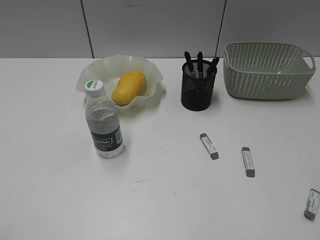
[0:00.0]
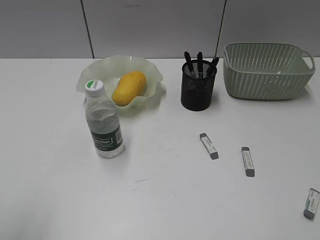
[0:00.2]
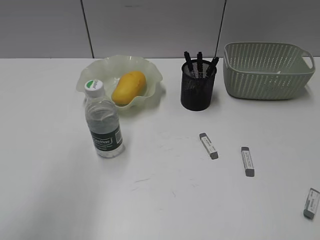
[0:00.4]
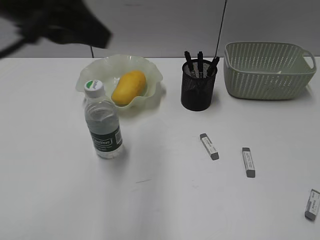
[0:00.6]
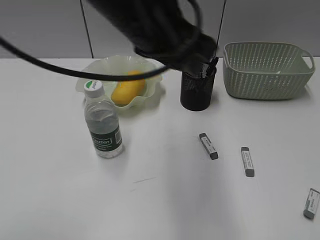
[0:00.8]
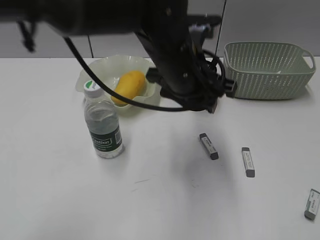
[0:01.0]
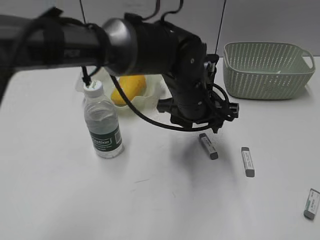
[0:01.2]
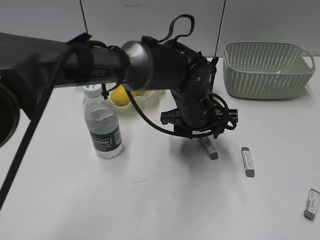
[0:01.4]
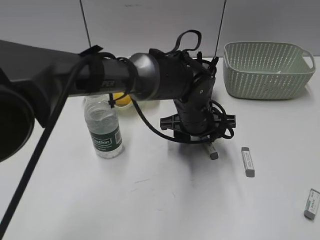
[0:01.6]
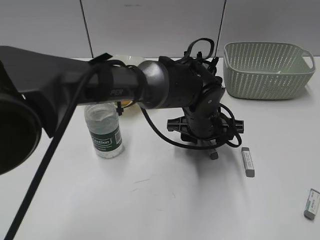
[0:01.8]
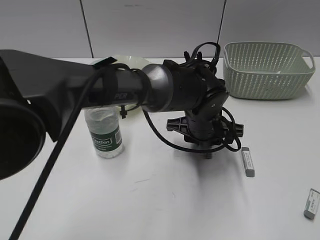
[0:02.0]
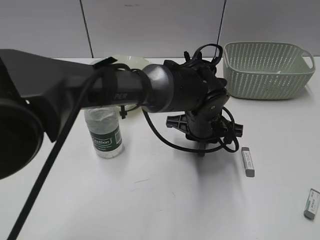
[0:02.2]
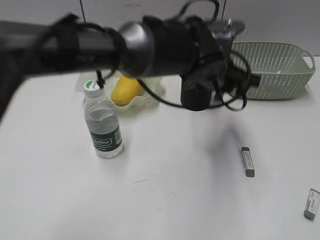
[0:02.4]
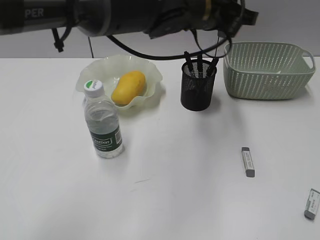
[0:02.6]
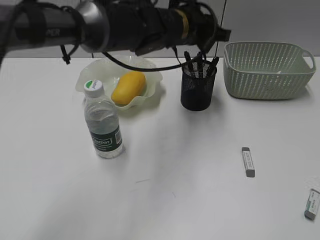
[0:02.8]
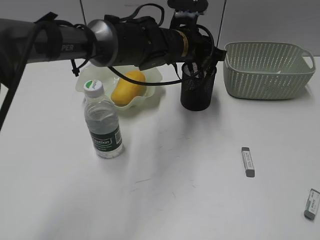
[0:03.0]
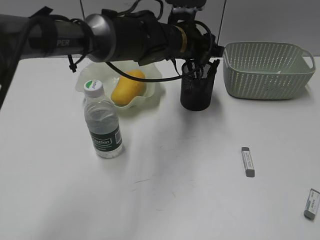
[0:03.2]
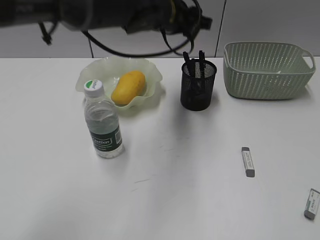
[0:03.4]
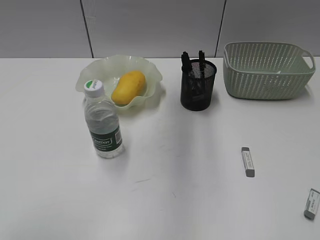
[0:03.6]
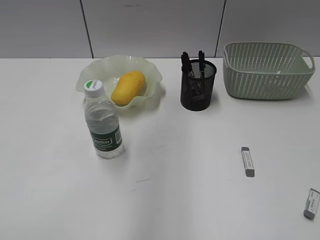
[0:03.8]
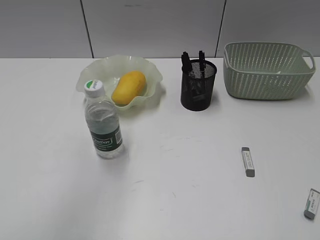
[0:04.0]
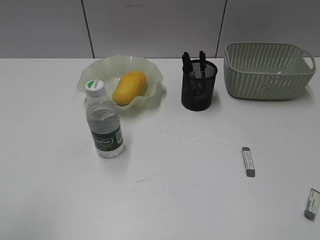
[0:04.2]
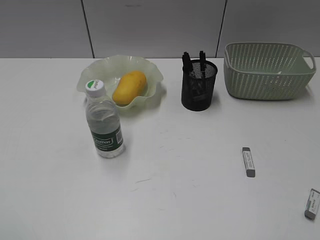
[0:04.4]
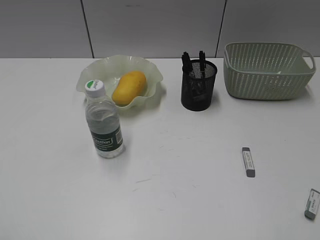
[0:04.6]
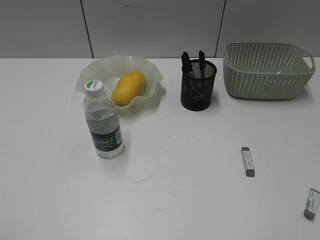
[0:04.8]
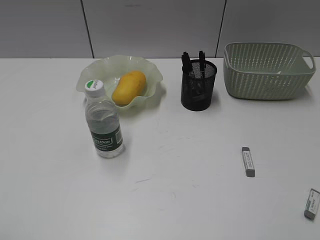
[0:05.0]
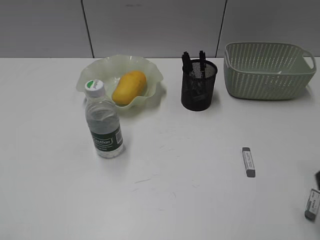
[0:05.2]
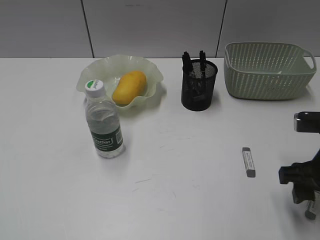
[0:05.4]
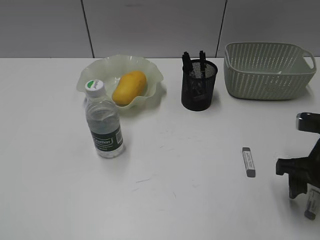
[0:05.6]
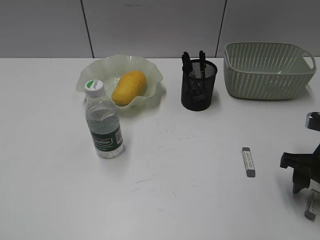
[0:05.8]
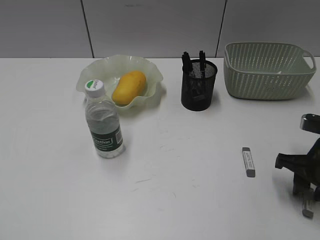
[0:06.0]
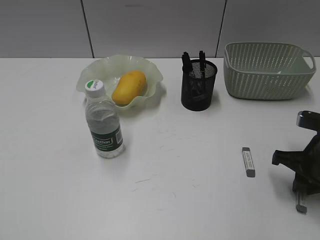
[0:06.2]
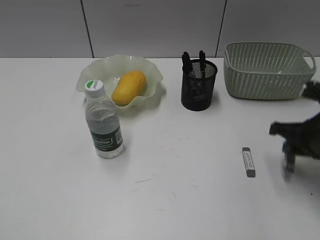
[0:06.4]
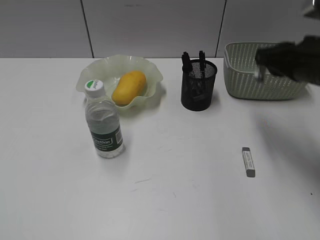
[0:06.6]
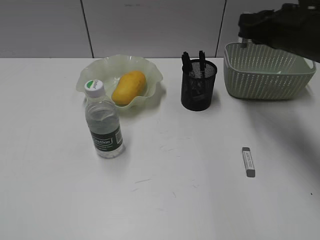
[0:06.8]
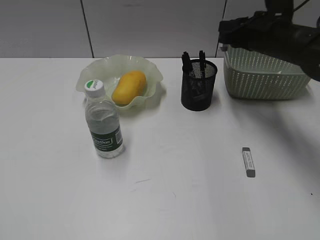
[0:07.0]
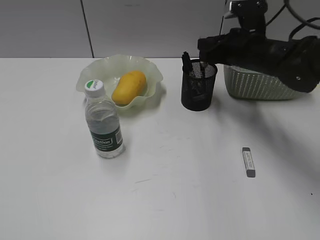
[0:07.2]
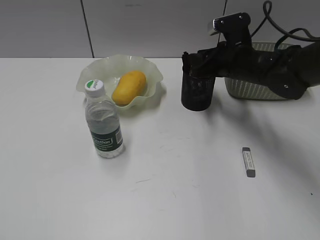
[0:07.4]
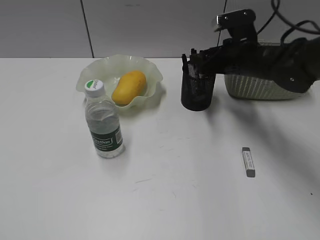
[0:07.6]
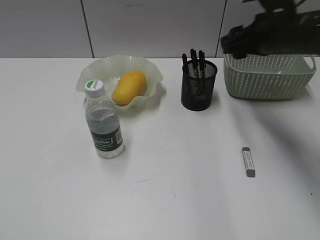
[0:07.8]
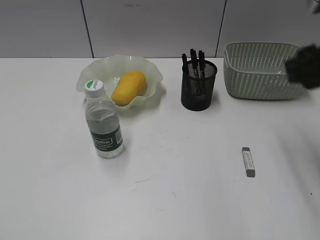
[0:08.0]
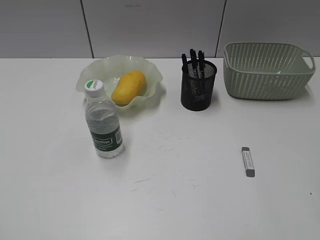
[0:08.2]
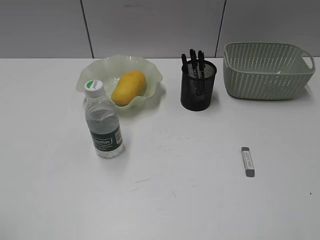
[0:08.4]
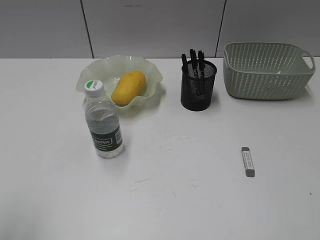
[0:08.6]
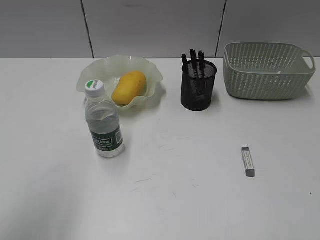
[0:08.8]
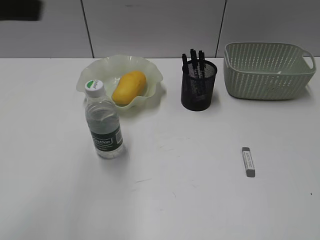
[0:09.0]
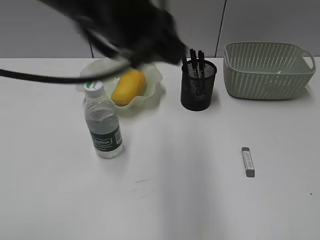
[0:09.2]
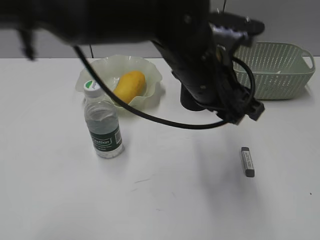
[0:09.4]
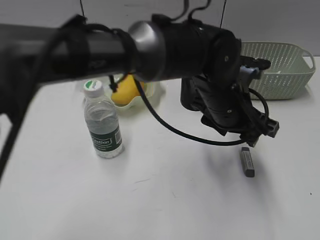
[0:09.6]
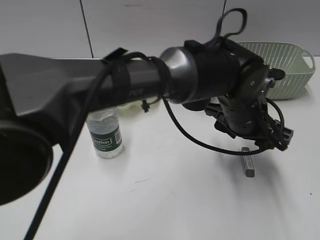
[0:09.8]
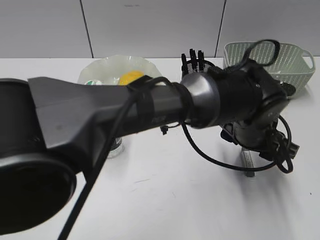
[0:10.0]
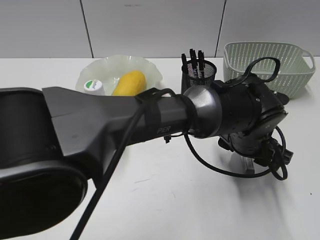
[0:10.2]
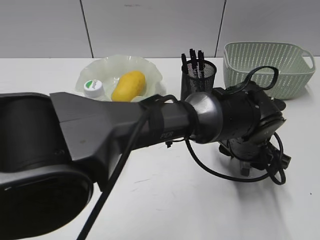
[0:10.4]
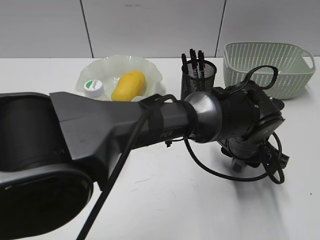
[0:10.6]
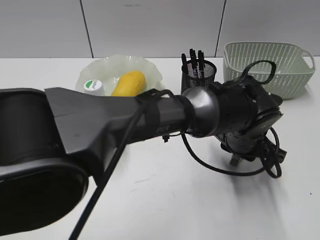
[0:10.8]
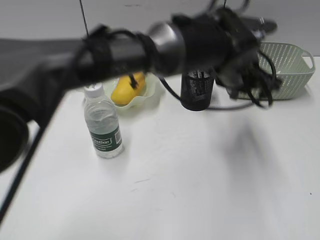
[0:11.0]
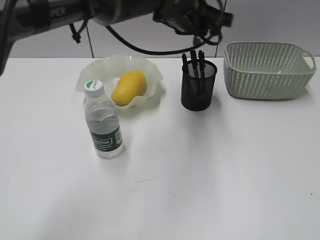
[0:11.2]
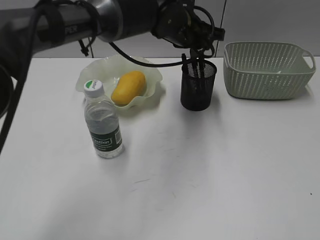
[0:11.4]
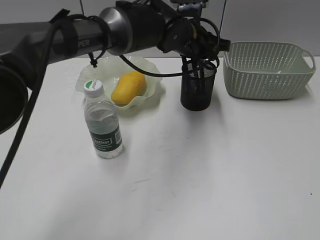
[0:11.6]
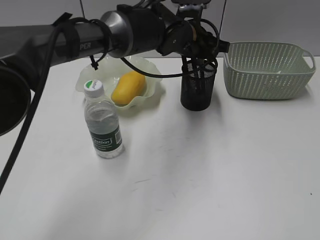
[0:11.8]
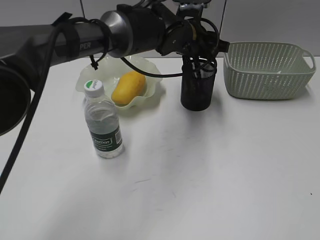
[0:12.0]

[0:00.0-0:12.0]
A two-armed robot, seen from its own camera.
Step, 0:00.0 to 0:02.0: Grasp the eraser with left gripper.
Step, 0:02.2 to 0:03.2: Place the eraser in pen holder with left gripper.
Step, 0:03.4 to 0:06.2: Grasp the eraser with right gripper.
Step, 0:06.4 to 0:07.6: Place the eraser in pen holder with right gripper.
Step, 0:07.8 to 0:10.6: Grasp the eraser with left gripper.
0:00.0 to 0:01.6: The right gripper heads backward and to the right, covering roughly 15 cm; the left gripper travels to the right, forward and downward by approximately 50 cm, and opens its fingers.
0:01.6 to 0:03.0: The left gripper heads forward and upward, covering about 10 cm, and closes.
0:03.0 to 0:04.4: The left gripper goes approximately 50 cm backward and to the left, and opens, then closes again.
0:04.4 to 0:06.0: The right gripper goes about 30 cm forward and downward, and opens, then closes once more.
0:06.0 to 0:07.6: The right gripper goes some 20 cm forward and to the left, and opens.
0:07.6 to 0:09.0: The left gripper is displaced forward, to the right and upward by roughly 25 cm, while the right gripper heads backward, covering approximately 40 cm.
0:09.0 to 0:10.4: The left gripper shifts some 50 cm to the right and downward.
0:10.4 to 0:12.0: The left gripper moves forward, upward and to the left, roughly 20 cm, and closes and opens again.

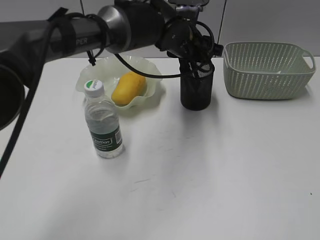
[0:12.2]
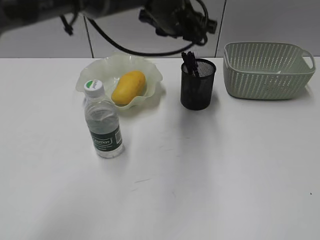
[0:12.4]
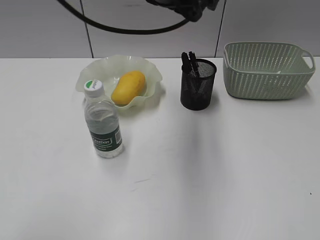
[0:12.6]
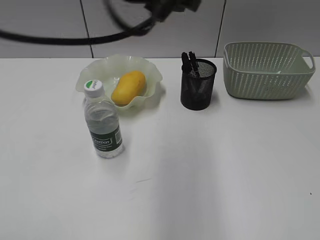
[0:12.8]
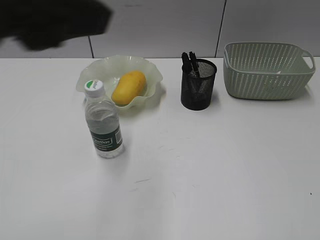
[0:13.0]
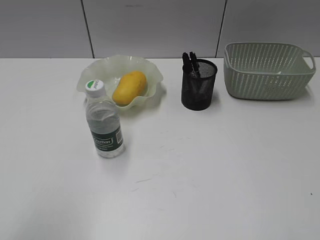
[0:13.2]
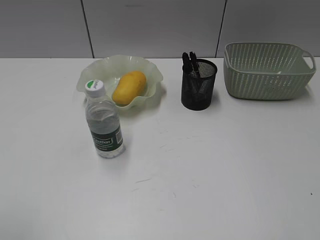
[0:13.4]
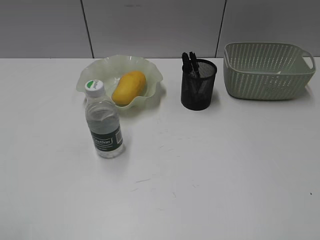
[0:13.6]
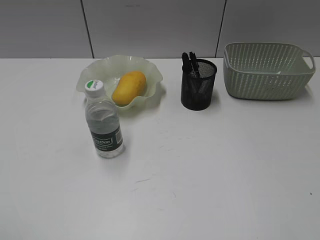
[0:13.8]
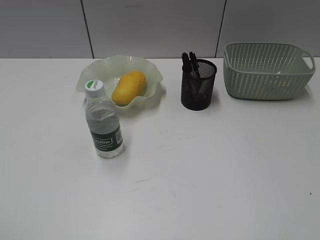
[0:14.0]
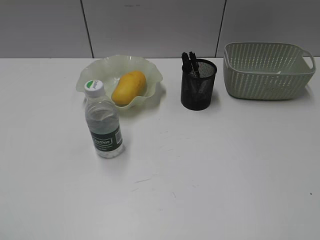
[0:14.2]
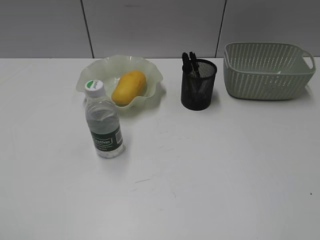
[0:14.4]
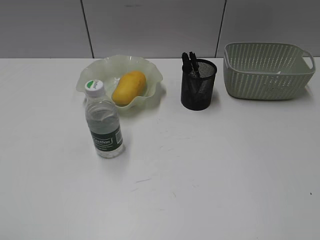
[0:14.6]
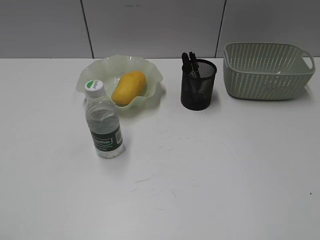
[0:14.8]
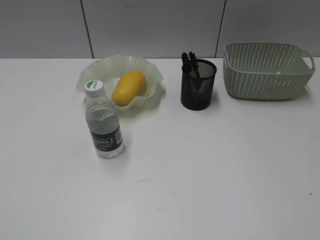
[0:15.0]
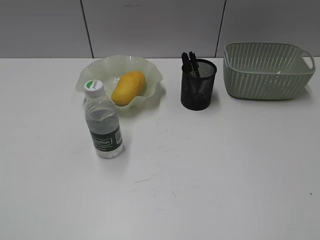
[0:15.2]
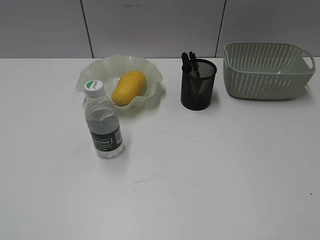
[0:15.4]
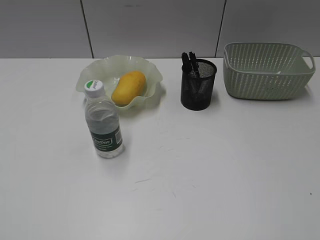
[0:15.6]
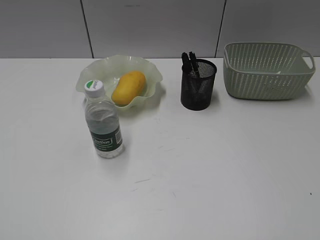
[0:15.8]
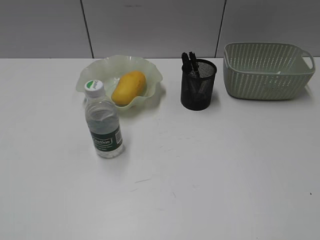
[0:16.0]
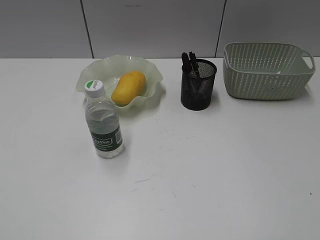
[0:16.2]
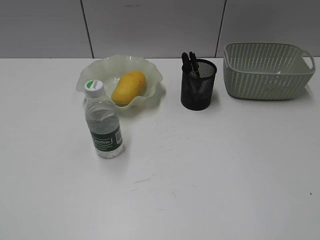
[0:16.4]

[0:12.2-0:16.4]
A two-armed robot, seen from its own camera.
0:12.2 to 0:13.6: The left gripper is displaced backward and to the left by roughly 50 cm.

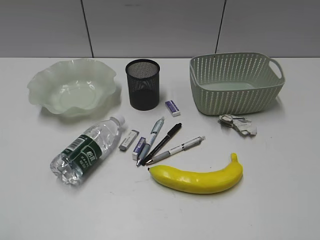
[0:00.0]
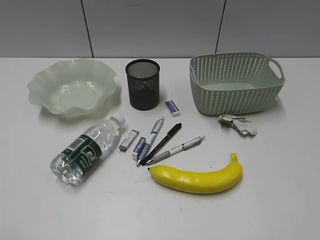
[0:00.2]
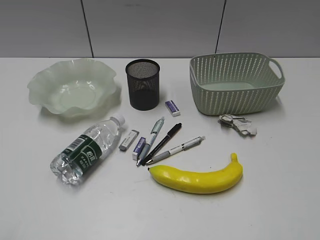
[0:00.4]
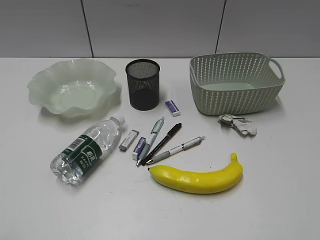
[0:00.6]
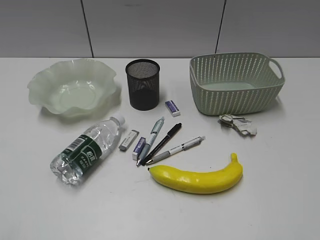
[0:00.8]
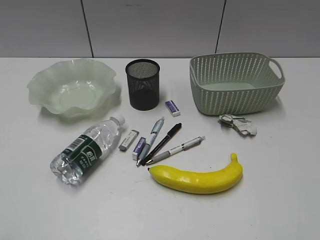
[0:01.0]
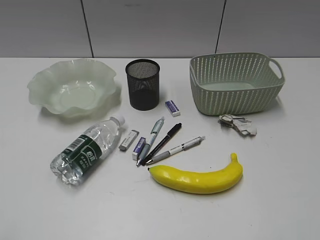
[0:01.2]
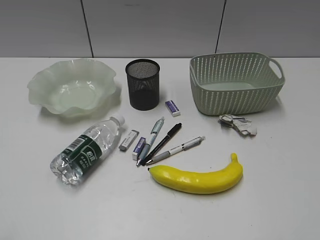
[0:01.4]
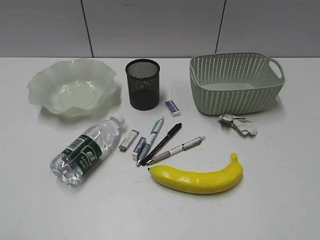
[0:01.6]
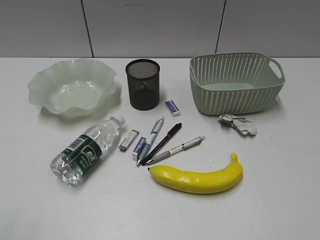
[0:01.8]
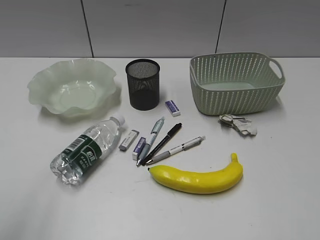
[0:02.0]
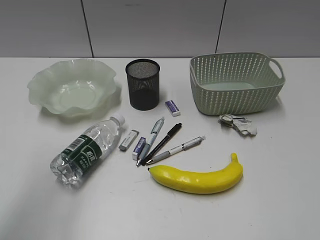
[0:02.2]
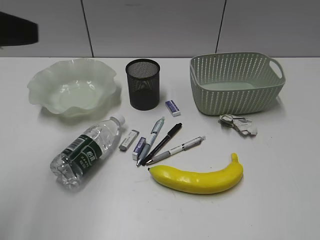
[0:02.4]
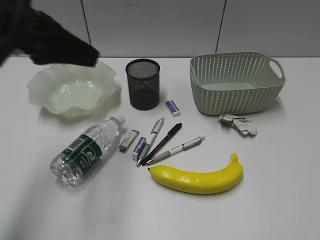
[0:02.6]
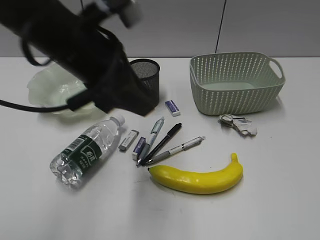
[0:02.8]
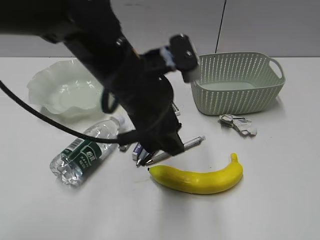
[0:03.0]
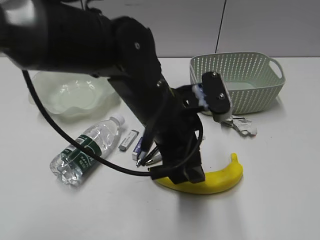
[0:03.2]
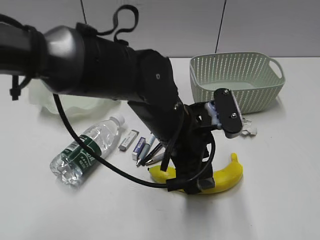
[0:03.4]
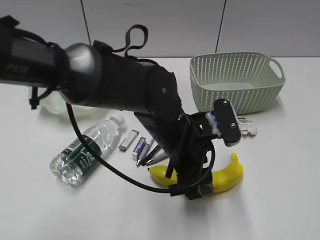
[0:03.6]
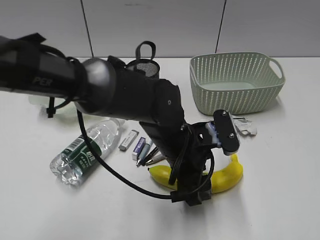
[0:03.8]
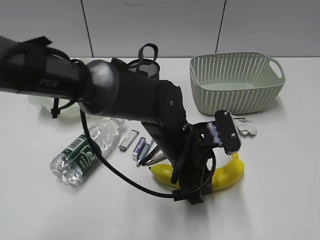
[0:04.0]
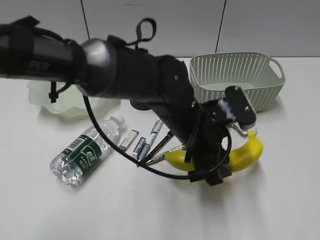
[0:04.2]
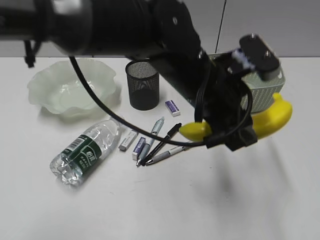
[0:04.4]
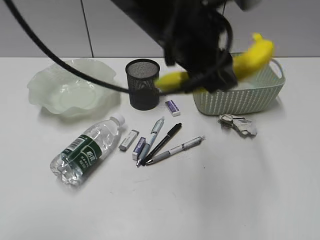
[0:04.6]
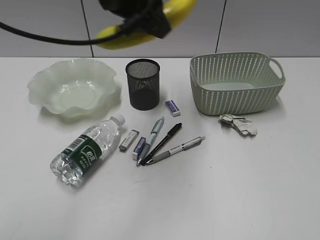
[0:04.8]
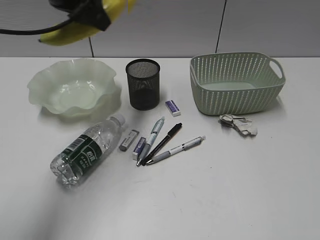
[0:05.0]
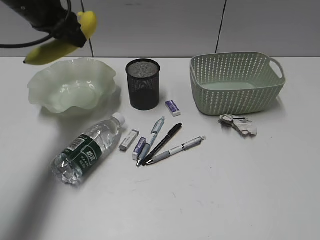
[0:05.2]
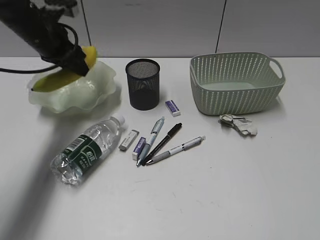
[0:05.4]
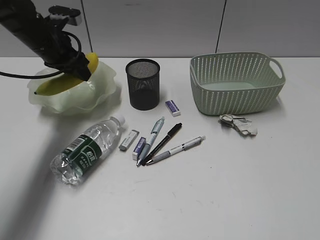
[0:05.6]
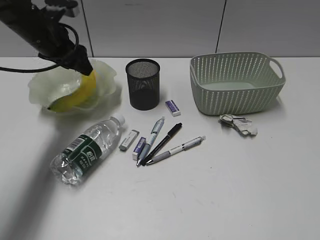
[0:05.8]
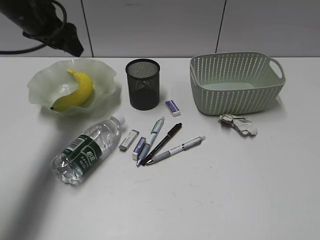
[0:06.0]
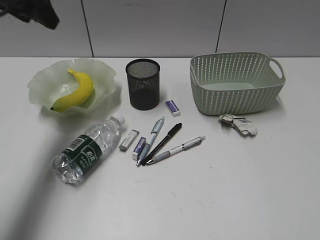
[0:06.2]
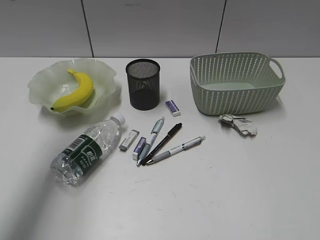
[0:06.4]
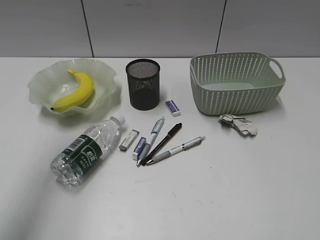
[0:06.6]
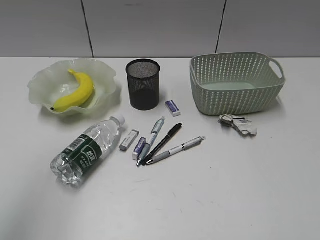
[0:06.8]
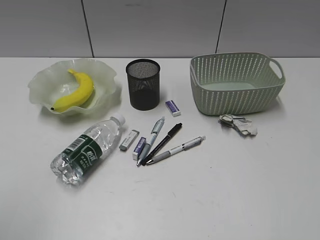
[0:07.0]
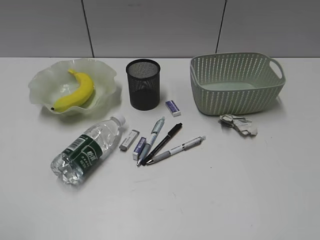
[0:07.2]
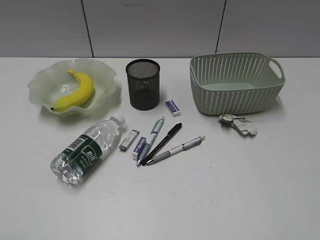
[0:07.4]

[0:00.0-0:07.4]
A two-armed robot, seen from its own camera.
Step, 0:01.6 to 0:04.0: Grasp the banana with left gripper.
Step, 0:04.2 to 0:05.8: Place the banana in the plate with left gripper.
0:01.4 to 0:03.0: The left gripper shifts approximately 40 cm forward and to the right.
0:03.0 to 0:04.4: The left gripper heads to the right, covering approximately 10 cm, and moves approximately 15 cm downward and comes back.
0:04.4 to 0:06.0: The left gripper is displaced to the left and forward by some 30 cm, and opens up.
0:06.0 to 0:07.4: The left gripper heads backward, covering roughly 40 cm.
